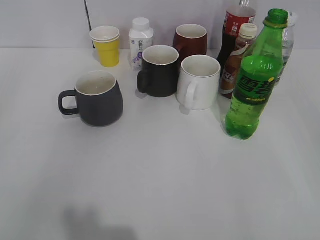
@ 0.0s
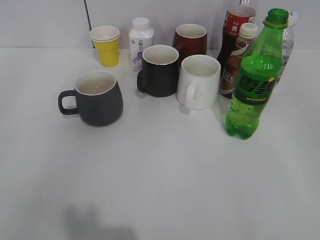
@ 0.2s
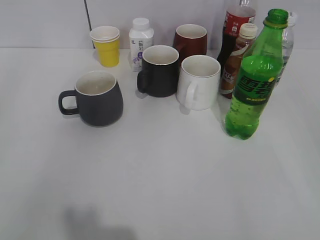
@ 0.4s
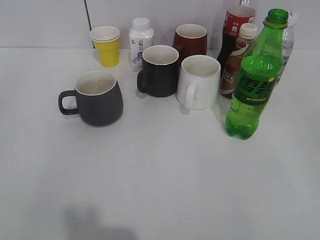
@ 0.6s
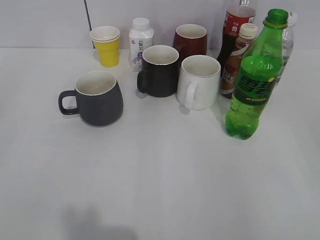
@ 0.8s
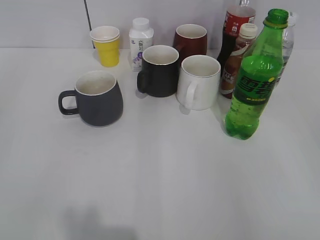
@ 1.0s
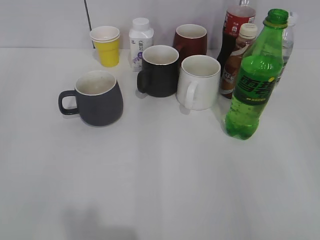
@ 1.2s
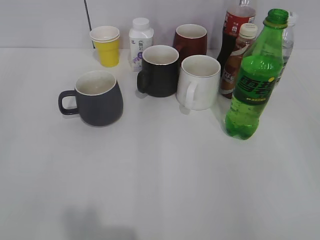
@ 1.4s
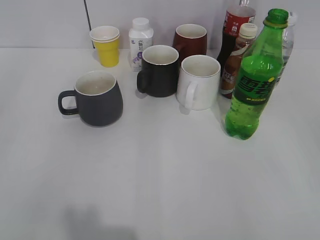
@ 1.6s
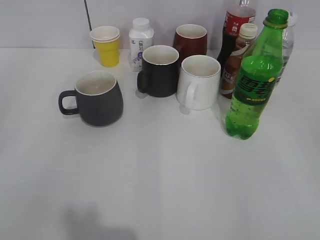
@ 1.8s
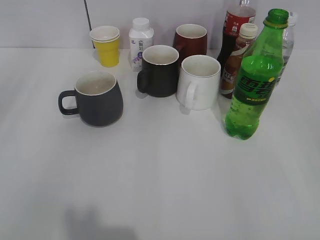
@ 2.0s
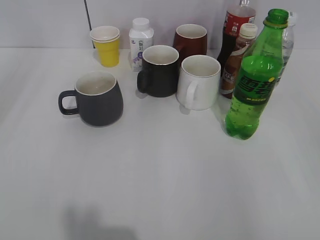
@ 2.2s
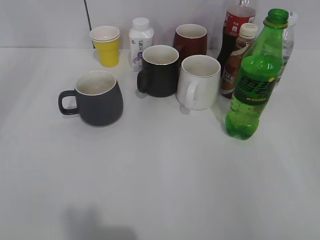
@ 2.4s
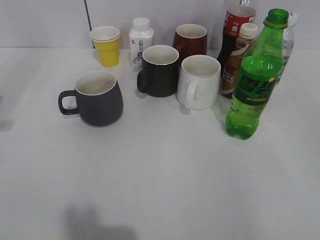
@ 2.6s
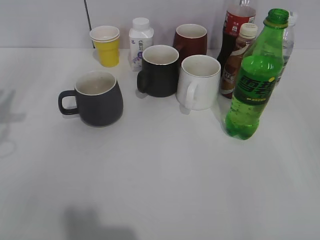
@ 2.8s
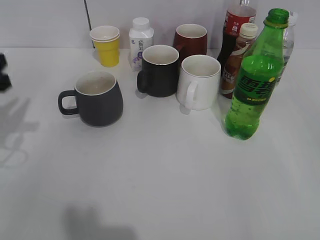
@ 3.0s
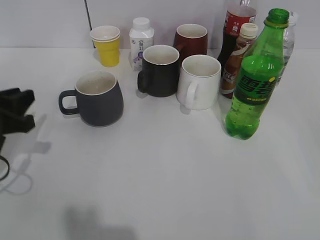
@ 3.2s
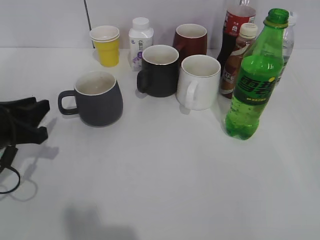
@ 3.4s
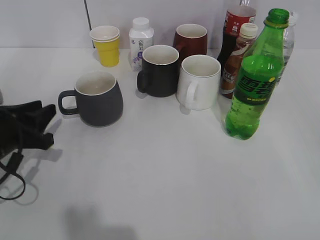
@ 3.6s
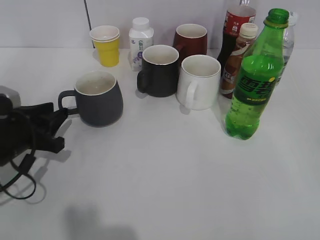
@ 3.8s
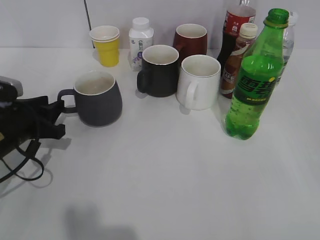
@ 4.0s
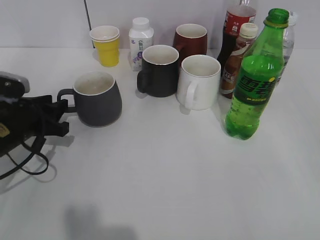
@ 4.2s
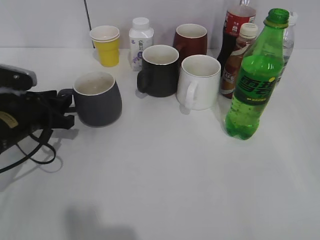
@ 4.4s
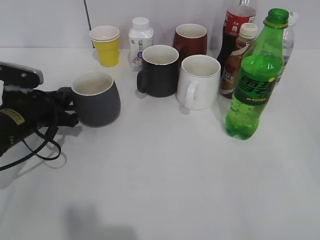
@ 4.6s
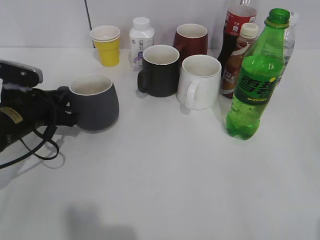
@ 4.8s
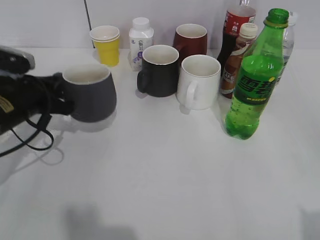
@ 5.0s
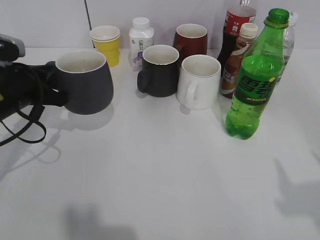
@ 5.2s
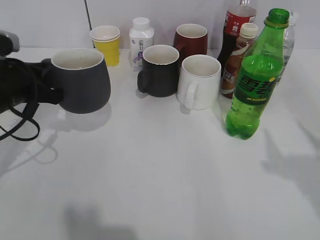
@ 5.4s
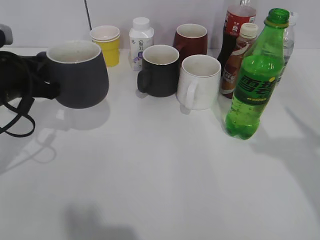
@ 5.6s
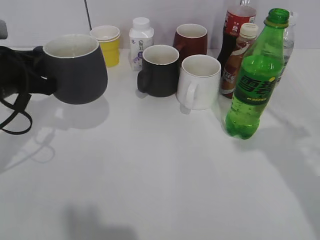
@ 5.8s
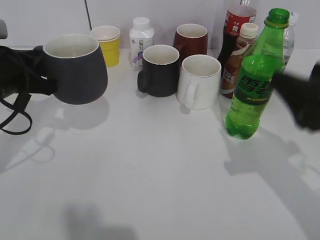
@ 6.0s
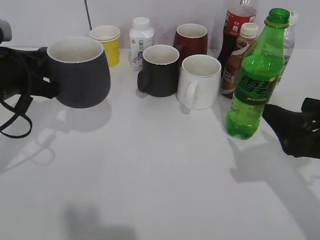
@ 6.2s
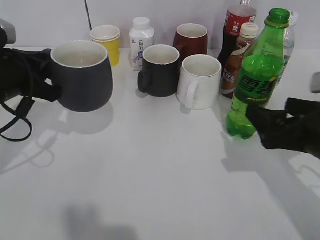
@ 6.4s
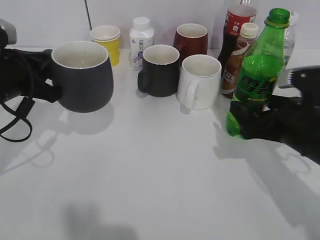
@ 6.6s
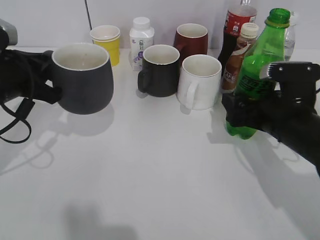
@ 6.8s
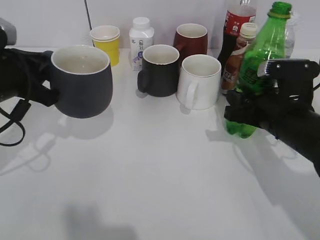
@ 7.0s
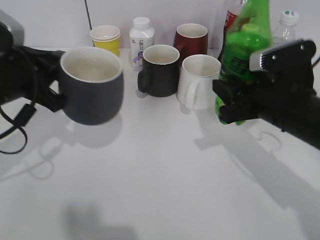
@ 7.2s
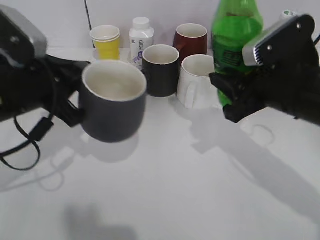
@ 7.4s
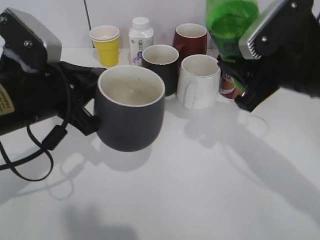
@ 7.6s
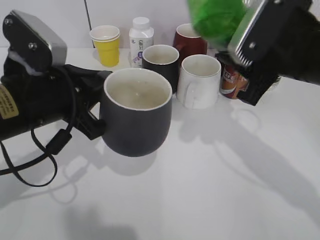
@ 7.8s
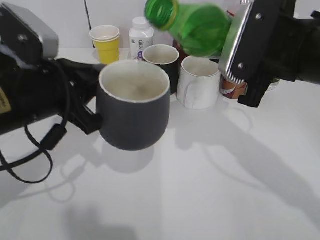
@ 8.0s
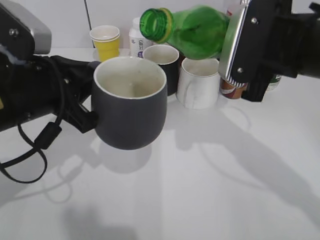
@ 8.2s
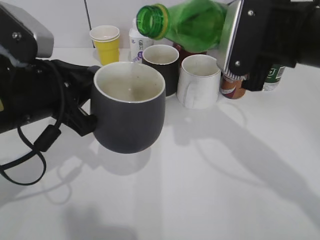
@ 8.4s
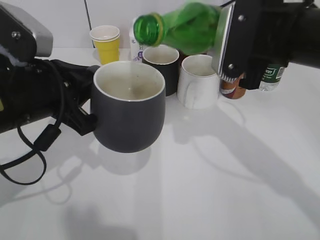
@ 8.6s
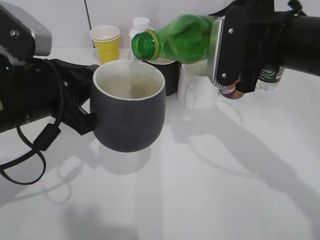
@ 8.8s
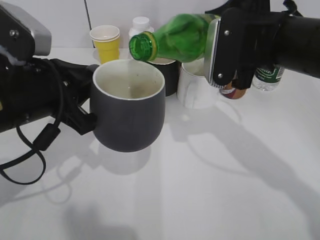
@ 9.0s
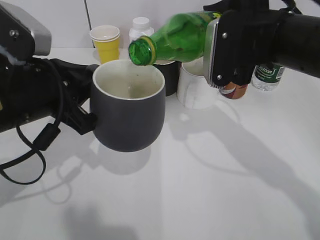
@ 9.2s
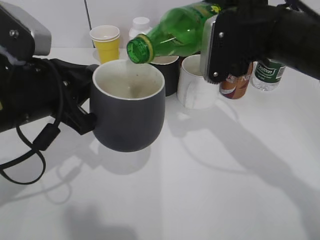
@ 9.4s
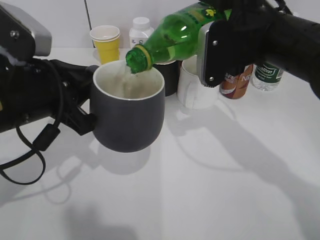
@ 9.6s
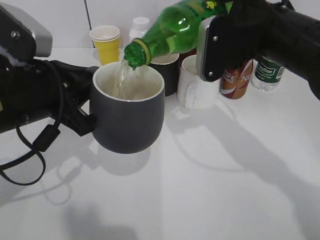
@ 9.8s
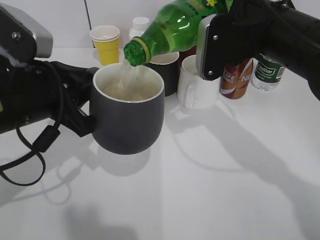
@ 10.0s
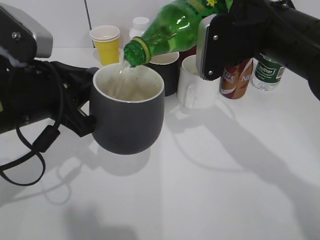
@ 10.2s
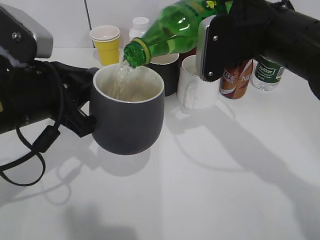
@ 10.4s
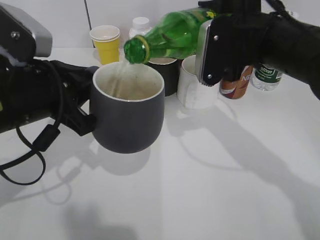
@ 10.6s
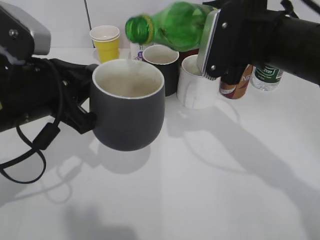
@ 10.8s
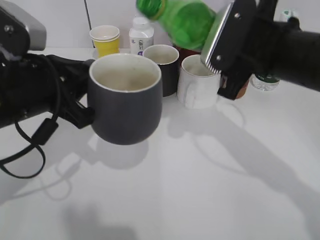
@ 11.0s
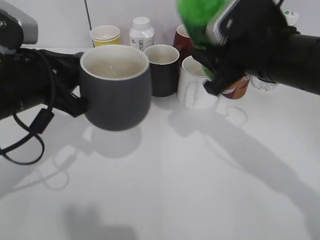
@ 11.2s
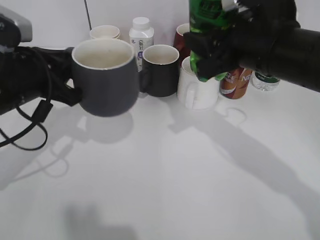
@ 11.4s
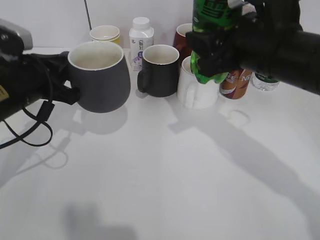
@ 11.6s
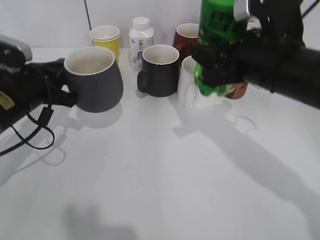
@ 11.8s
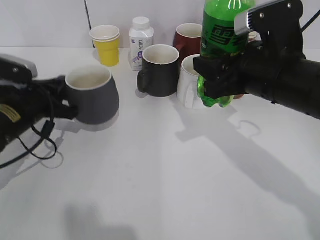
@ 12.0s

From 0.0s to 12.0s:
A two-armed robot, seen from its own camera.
Step, from 1.6s to 4.6s: Grasp the grey cup with left gripper.
Step, from 4.8s to 5.8s: Lift the grey cup with left gripper.
Step, from 6.0s to 6.8s: Grasp the bottle with sprite with right gripper.
Step, from 7.0s to 10.8s: Pour the sprite from bottle to cup with right gripper.
From 1.6s to 3.0s: The left gripper is displaced forward by approximately 25 cm.
From 3.0s to 4.4s: The left gripper shifts some 10 cm downward and to the right.
From 4.4s to 6.0s: The right gripper moves forward and to the left, some 20 cm. The left gripper moves upward, some 10 cm, and closes its fingers.
From 6.0s to 7.6s: The right gripper is displaced forward and to the left by some 10 cm, reaches roughly 10 cm downward, then returns, and closes its fingers. The left gripper is displaced to the right and backward by about 10 cm.
From 9.0s to 10.4s: The grippers move only a little.
From 10.4s to 12.0s: The right gripper shifts by approximately 5 cm. Meanwhile the left gripper moves downward, forward and to the left, roughly 15 cm.

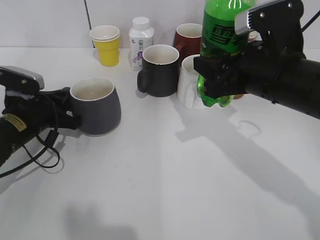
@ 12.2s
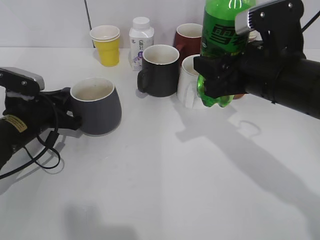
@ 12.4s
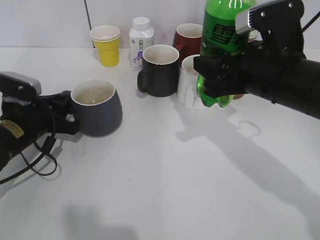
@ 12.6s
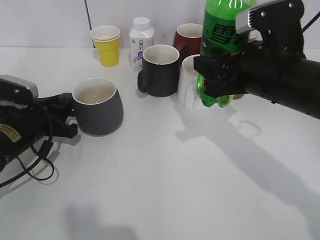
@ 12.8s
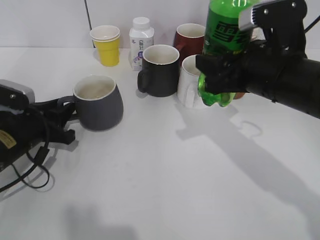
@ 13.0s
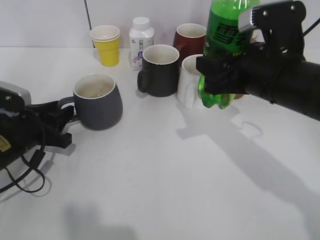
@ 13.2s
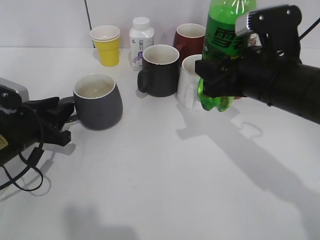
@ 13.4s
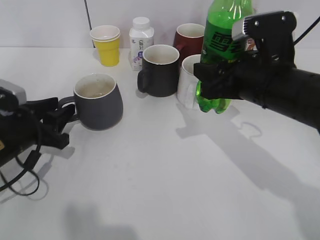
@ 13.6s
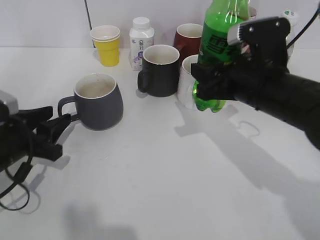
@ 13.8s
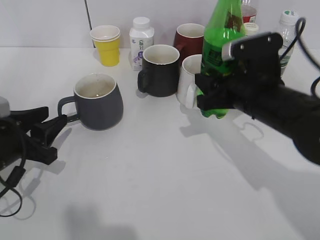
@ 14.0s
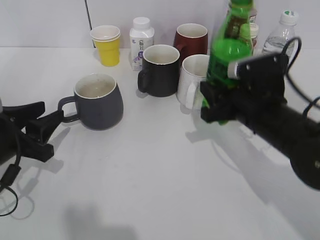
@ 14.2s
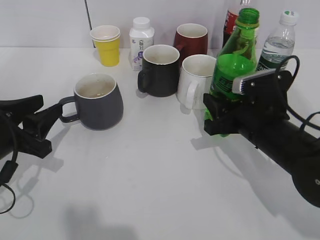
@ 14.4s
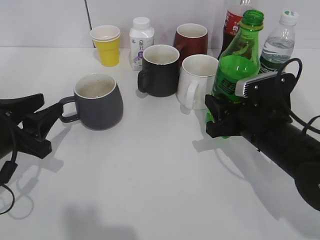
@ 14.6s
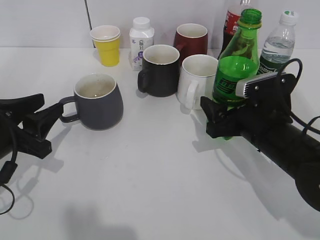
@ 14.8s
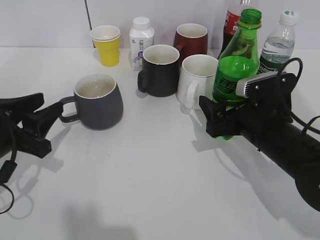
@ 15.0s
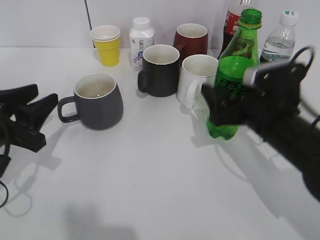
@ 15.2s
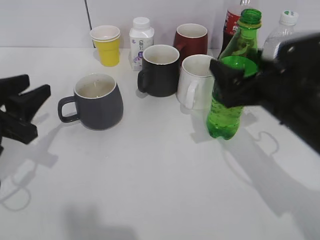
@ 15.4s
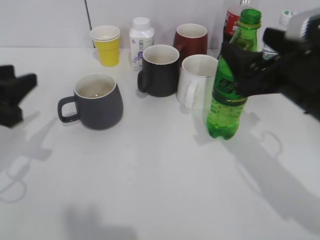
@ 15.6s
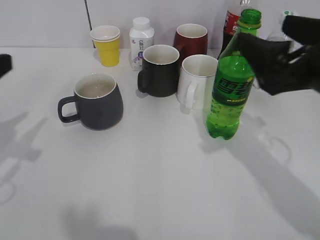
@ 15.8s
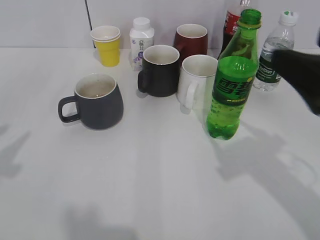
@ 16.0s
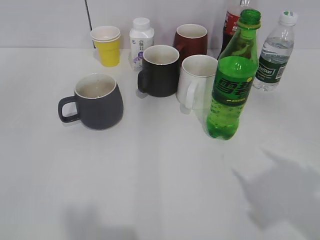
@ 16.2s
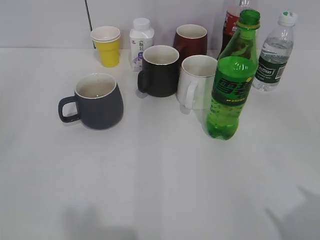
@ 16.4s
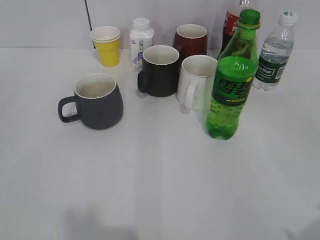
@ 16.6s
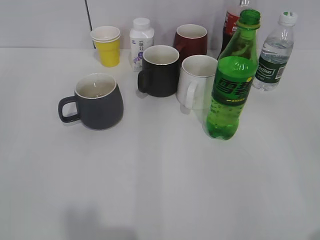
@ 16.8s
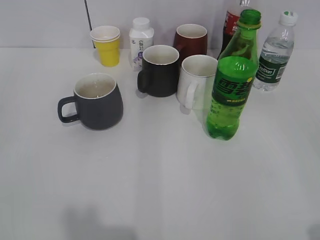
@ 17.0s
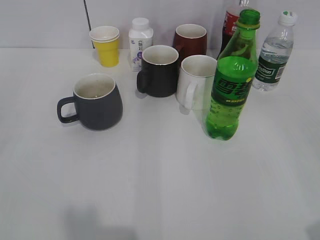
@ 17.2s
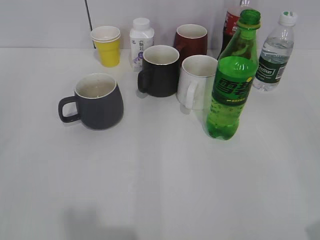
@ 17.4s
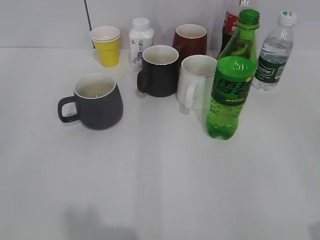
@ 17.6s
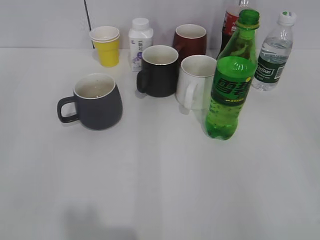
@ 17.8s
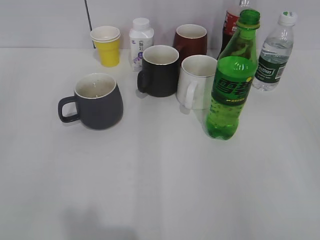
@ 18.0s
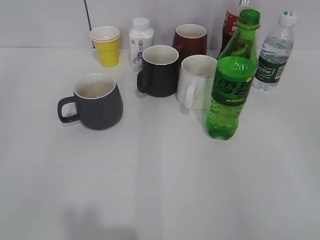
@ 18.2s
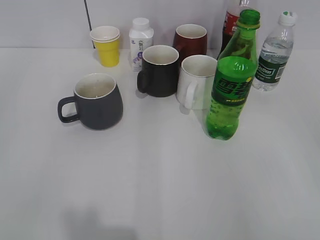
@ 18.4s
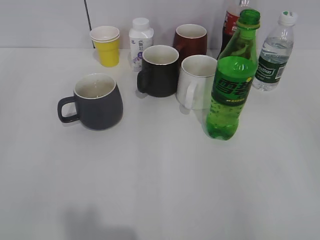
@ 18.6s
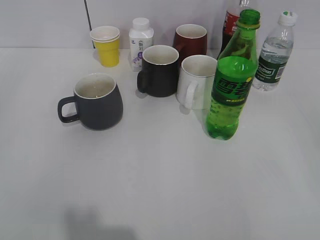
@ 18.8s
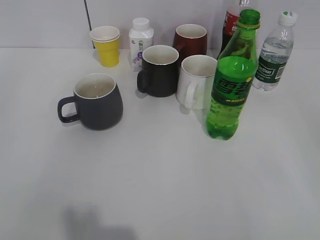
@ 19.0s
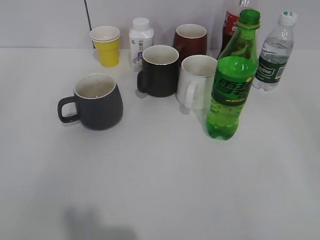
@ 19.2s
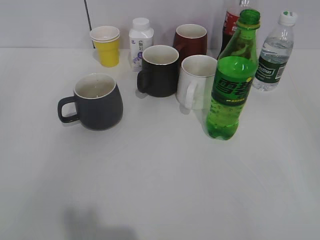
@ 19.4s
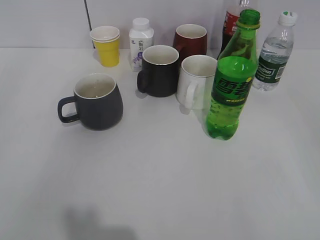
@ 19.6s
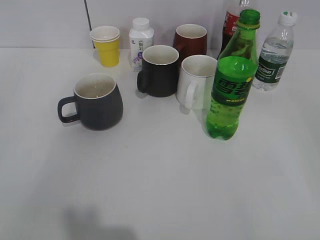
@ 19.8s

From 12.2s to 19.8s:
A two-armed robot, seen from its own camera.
Step, from 12.2s to 13.6s: Place the grey cup on the table with left gripper.
Step, from 13.8s to 15.2s: Place the sprite bottle on the table with right gripper.
From 12.2s to 13.8s: The left gripper is displaced backward by some 5 cm, and opens.
From 13.8s to 15.2s: The left gripper moves about 5 cm; the right gripper is displaced downward by some 5 cm, and opens up.
From 15.2s to 16.8s: The left gripper goes some 25 cm backward, upward and to the left. Meanwhile the right gripper is displaced backward, to the right and upward by roughly 30 cm.
From 18.2s to 19.8s: Both grippers stay put.

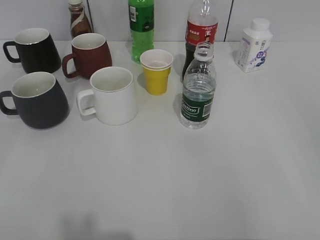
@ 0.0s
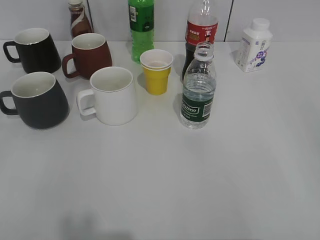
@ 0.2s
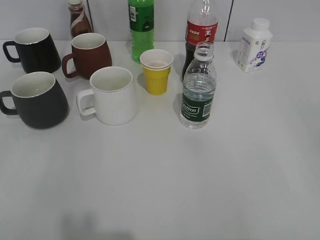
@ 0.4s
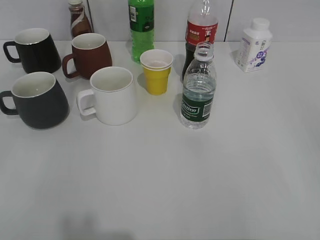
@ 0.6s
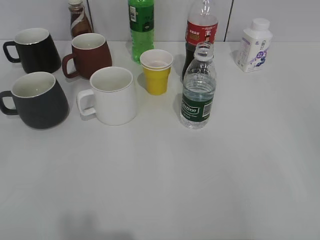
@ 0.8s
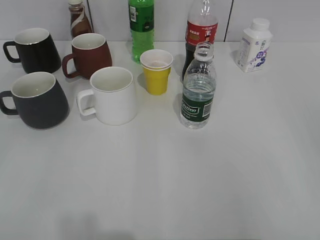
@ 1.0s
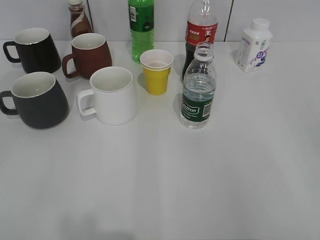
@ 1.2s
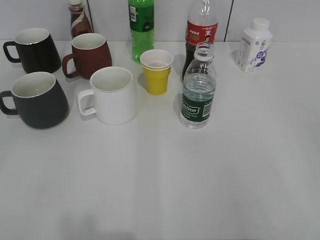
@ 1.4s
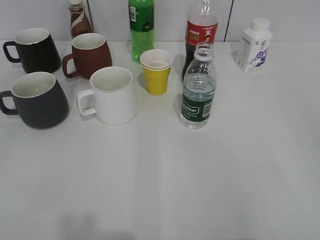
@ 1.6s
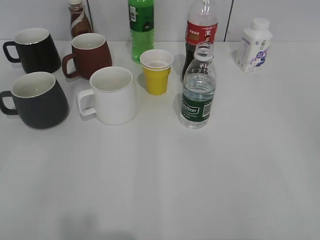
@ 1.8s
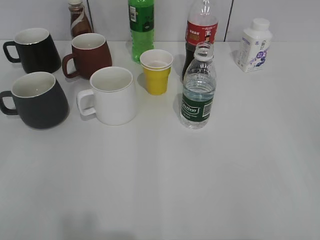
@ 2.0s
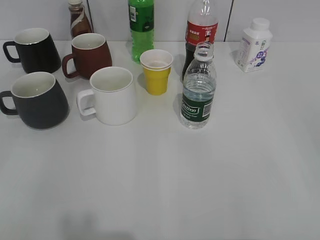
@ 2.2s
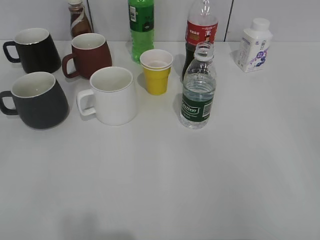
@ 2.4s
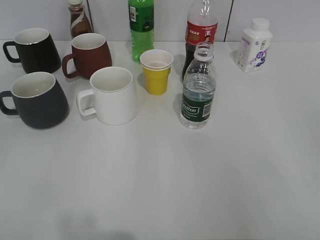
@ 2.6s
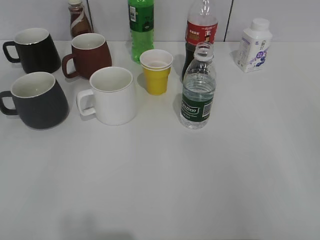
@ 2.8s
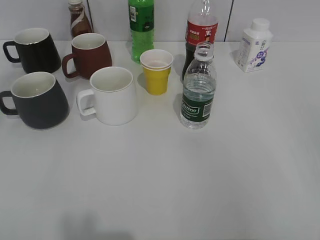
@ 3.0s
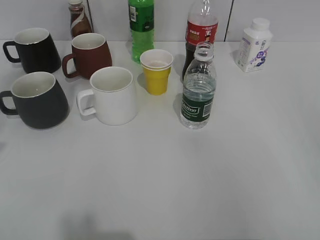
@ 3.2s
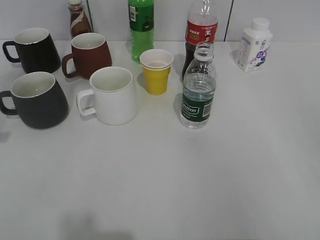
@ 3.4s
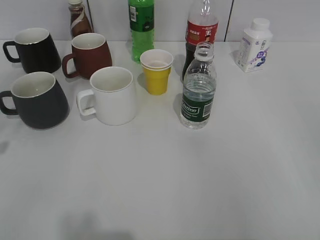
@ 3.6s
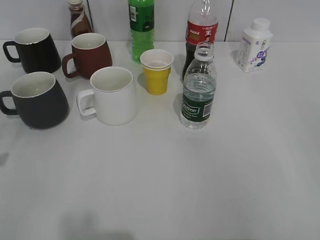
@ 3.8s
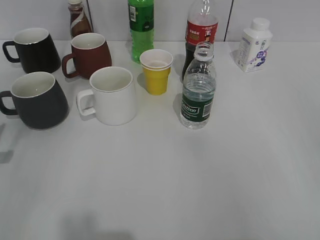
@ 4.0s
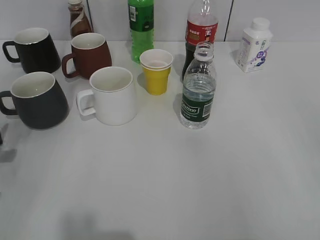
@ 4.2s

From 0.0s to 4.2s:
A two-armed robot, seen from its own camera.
From 2.8s to 4.2s: The left gripper goes roughly 25 cm forward and downward.
